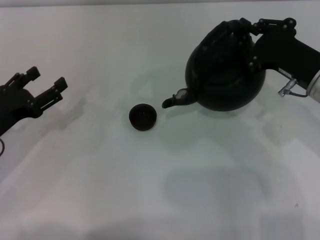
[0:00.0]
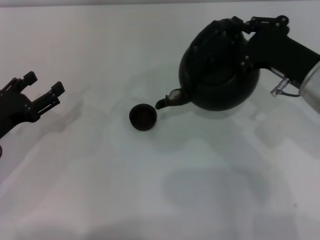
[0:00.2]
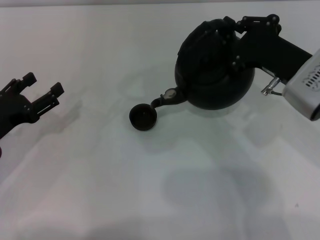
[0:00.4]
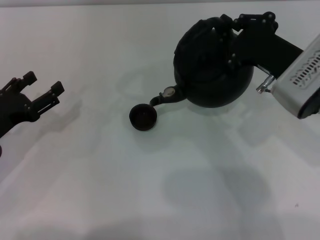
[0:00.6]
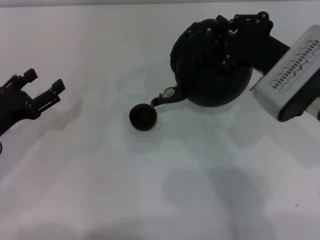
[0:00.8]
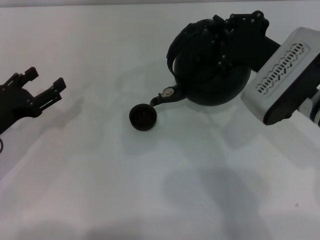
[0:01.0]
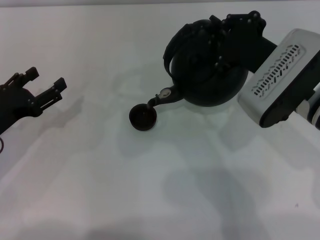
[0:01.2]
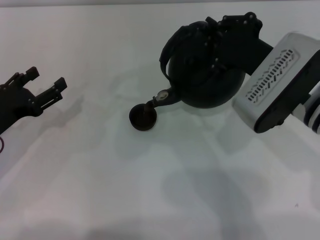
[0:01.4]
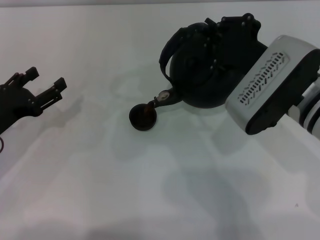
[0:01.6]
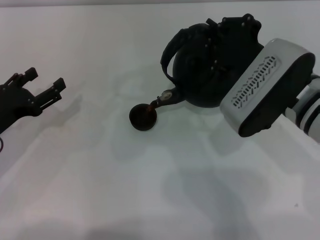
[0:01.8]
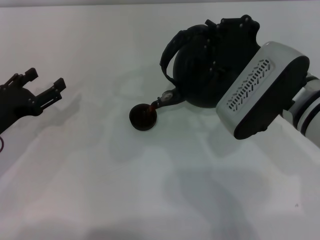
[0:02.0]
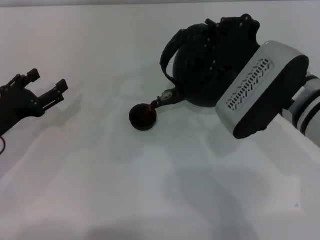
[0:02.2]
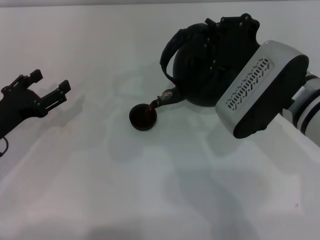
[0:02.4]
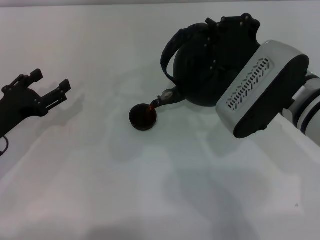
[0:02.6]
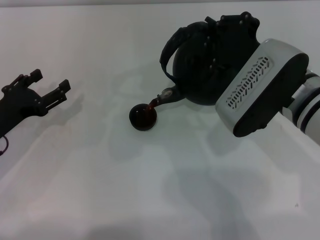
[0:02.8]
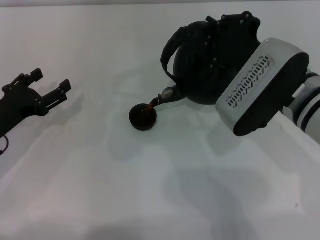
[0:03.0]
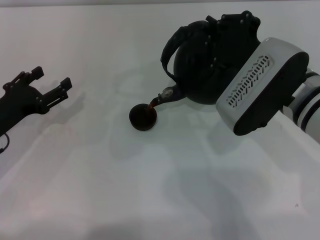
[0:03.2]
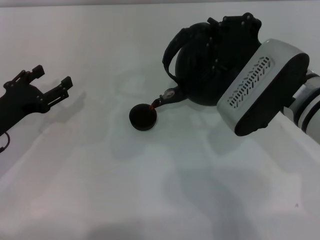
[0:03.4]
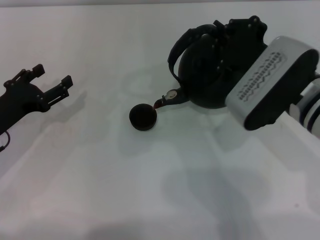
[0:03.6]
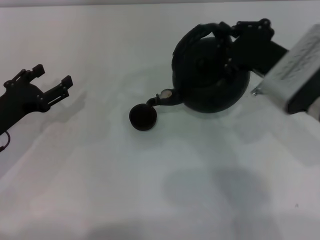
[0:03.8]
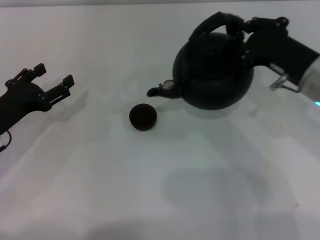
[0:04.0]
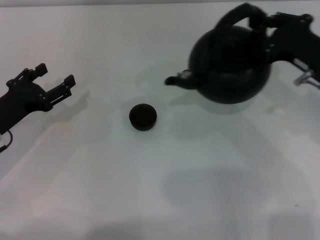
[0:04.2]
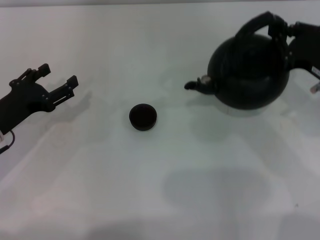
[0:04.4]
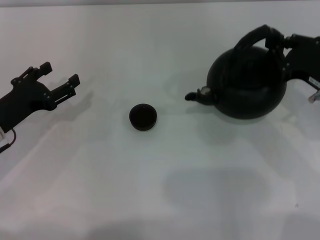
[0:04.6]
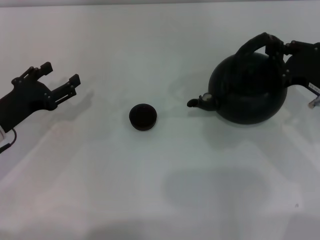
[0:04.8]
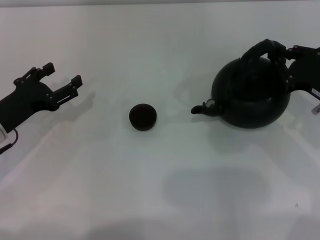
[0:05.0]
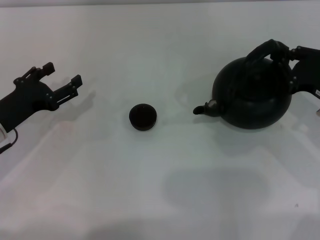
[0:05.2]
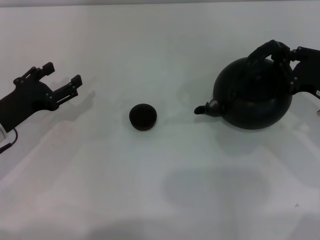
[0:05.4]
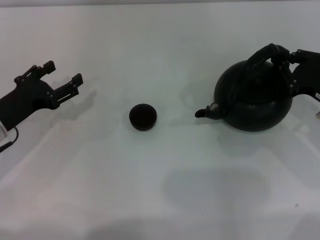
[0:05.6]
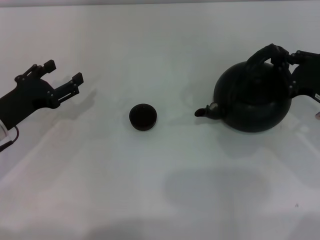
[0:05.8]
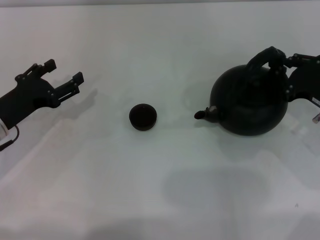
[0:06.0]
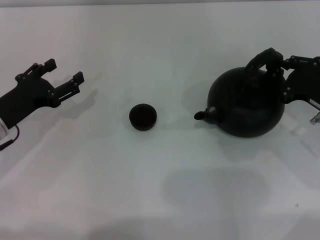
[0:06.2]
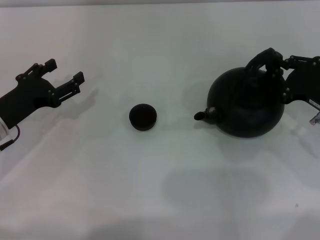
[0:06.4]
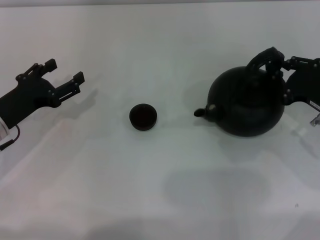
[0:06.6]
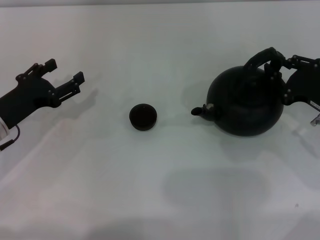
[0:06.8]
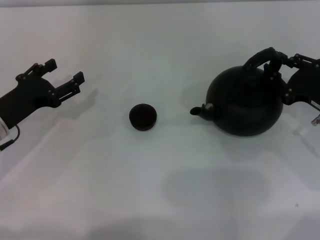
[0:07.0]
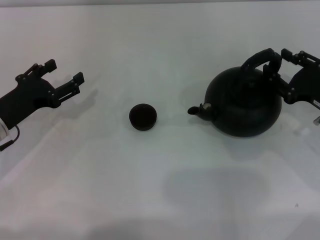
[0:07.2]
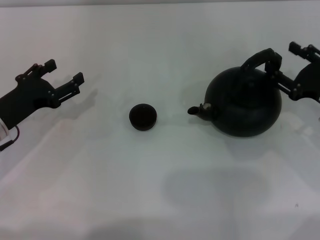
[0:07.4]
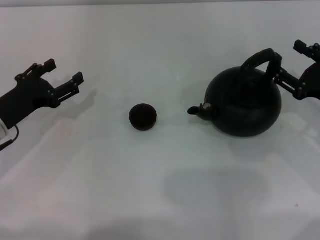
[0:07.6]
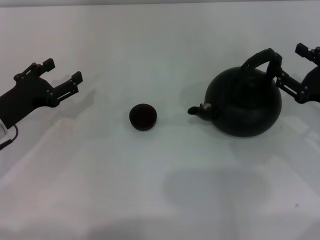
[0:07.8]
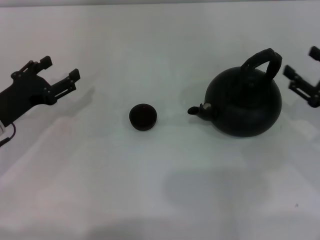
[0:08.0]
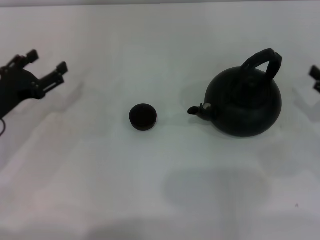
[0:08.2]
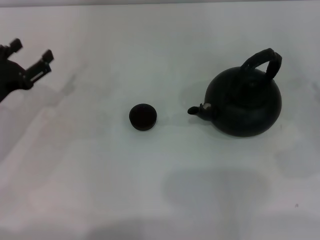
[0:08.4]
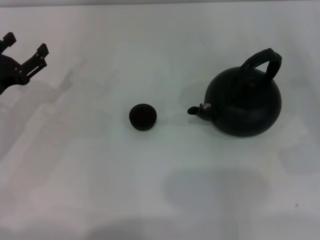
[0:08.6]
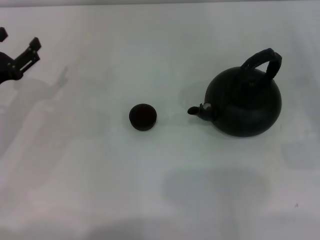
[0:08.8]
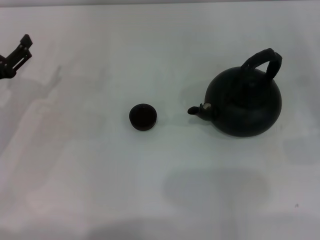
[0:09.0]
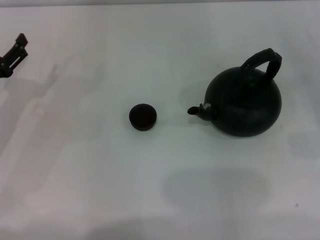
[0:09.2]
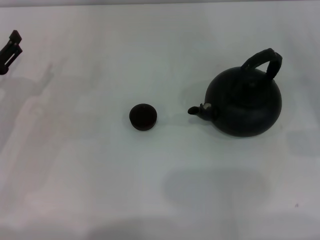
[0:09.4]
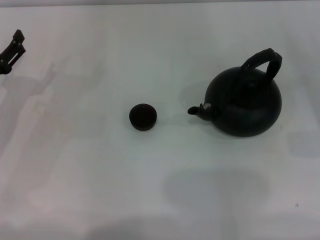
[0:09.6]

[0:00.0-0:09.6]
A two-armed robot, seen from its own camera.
Task of the whole recording: Grasp the handle of the teapot with one hand and pour tea into the teacup.
Step, 0:00.0 to 0:03.8: Pour tea into the teacup with the right gripper.
Step, 0:04.2 to 0:08.0: Put down the teapot with the right gripper.
0:00.0 to 0:01.6: The right gripper shifts approximately 5 cm to the left.
0:01.6 to 0:03.2: The grippers move only a little.
0:03.2 to 0:04.8: The right gripper goes some 15 cm to the right and downward.
0:04.8 to 0:06.4: The grippers move only a little.
0:06.4 to 0:08.0: The right gripper opens.
0:08.0 to 0:09.6: The right gripper goes some 5 cm to the right.
